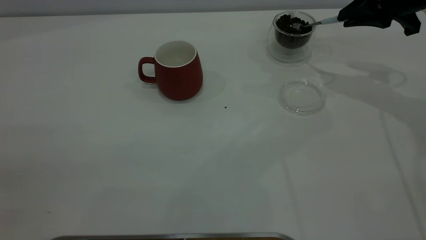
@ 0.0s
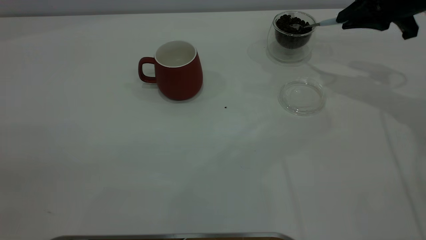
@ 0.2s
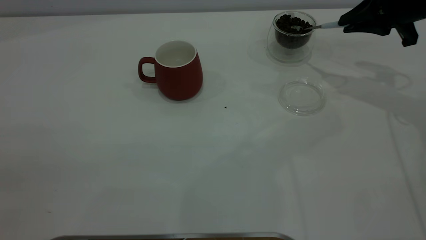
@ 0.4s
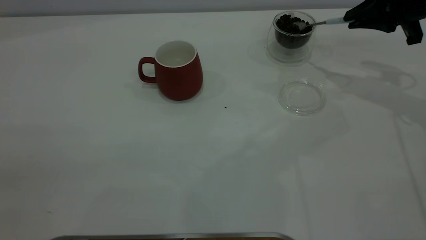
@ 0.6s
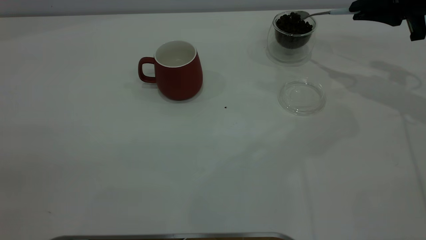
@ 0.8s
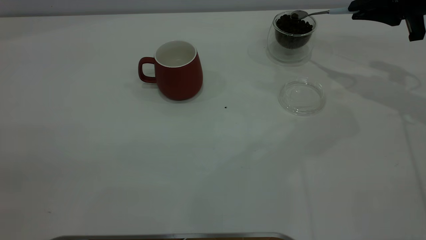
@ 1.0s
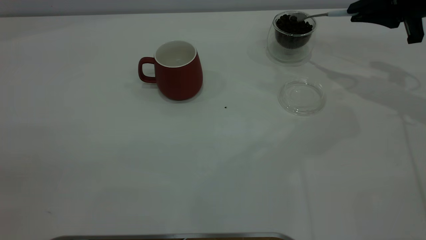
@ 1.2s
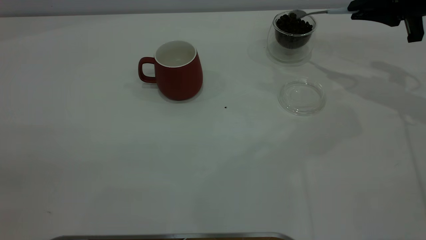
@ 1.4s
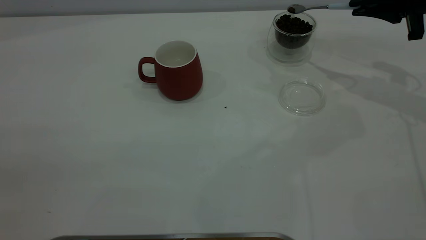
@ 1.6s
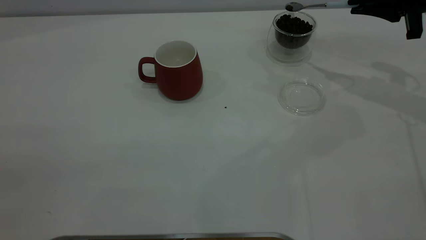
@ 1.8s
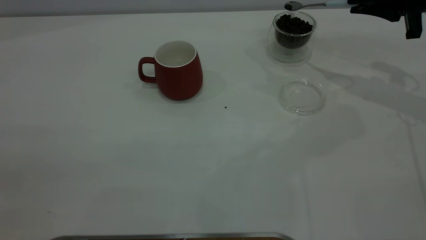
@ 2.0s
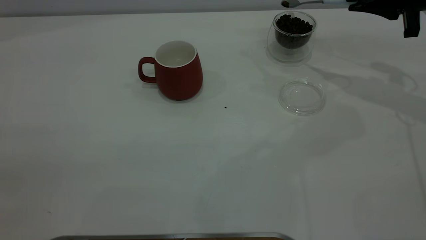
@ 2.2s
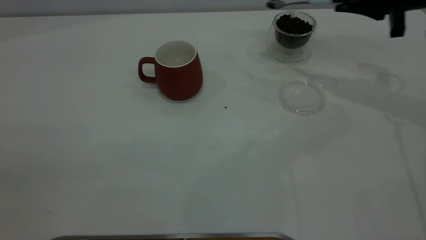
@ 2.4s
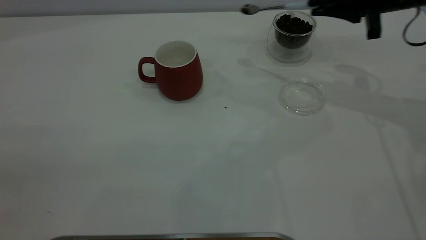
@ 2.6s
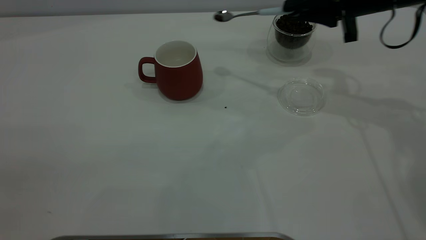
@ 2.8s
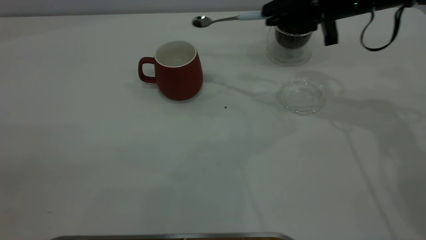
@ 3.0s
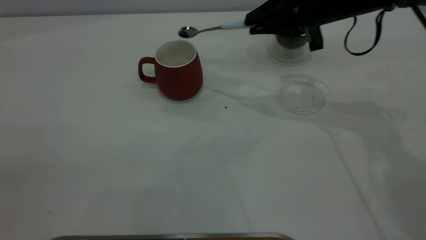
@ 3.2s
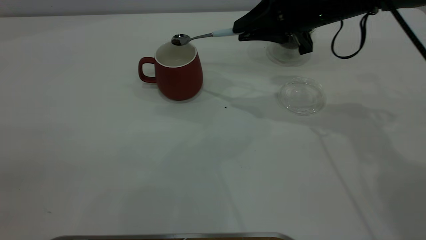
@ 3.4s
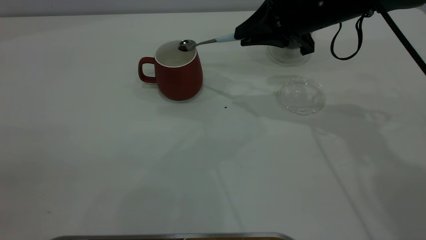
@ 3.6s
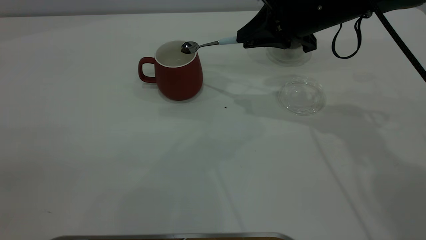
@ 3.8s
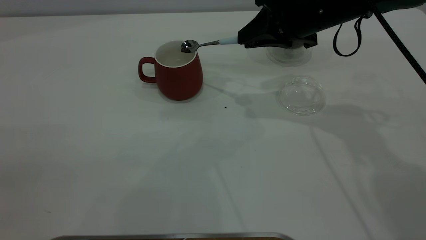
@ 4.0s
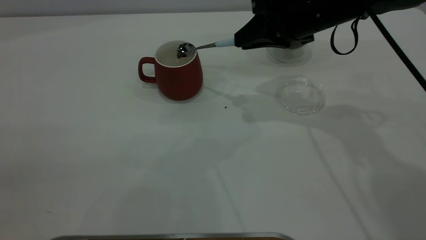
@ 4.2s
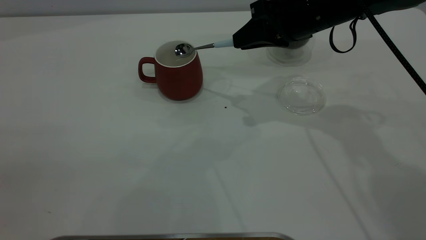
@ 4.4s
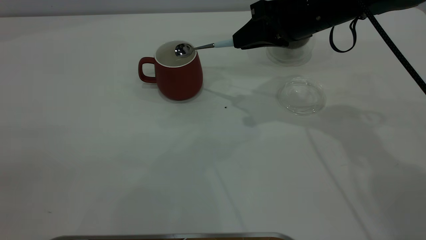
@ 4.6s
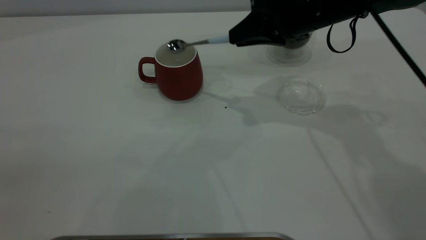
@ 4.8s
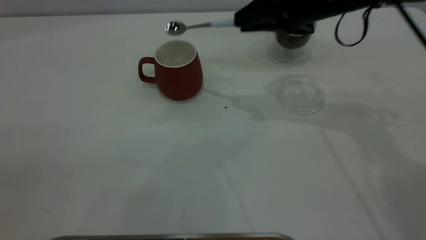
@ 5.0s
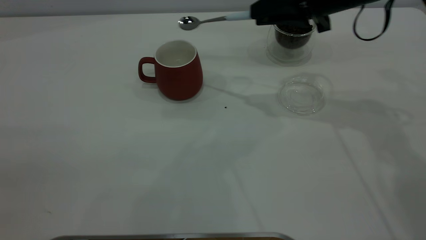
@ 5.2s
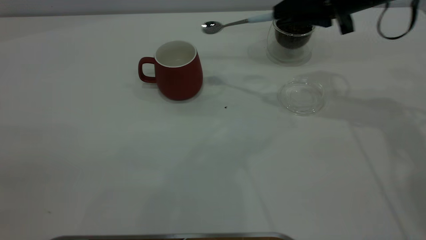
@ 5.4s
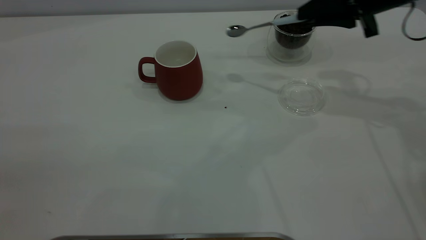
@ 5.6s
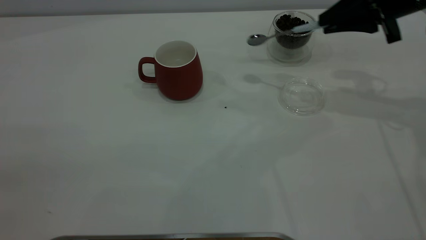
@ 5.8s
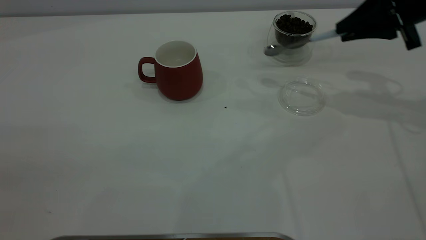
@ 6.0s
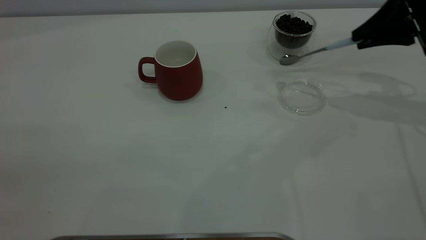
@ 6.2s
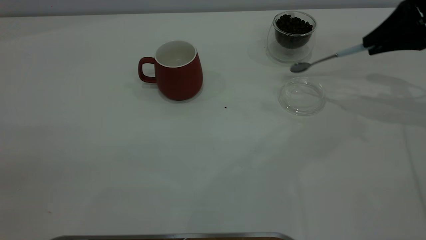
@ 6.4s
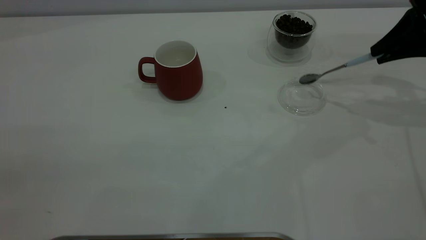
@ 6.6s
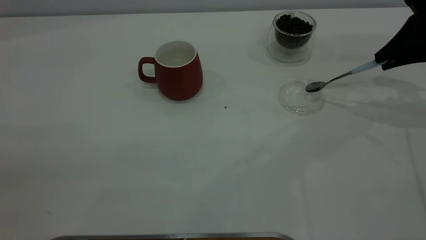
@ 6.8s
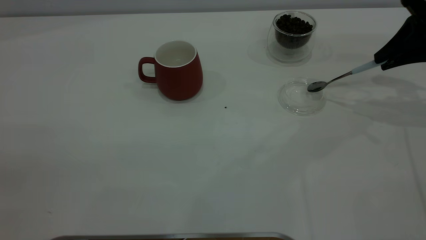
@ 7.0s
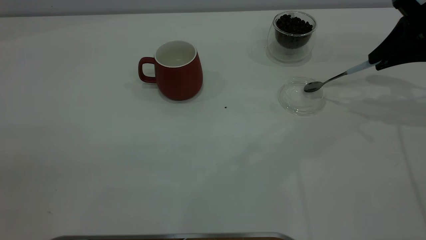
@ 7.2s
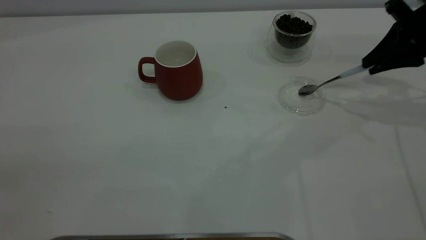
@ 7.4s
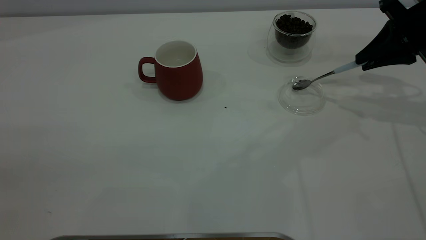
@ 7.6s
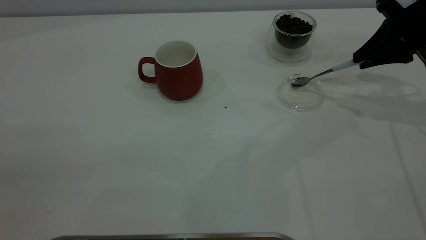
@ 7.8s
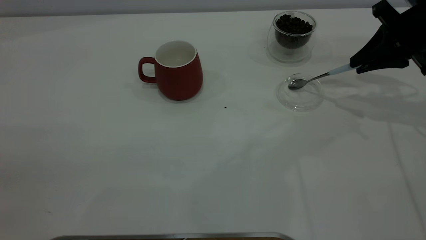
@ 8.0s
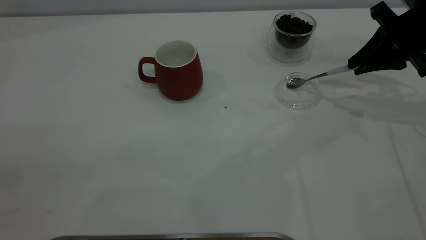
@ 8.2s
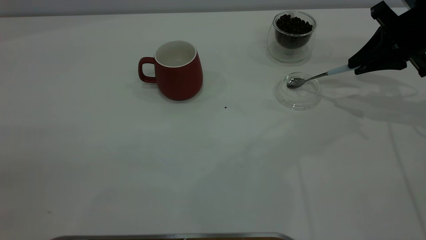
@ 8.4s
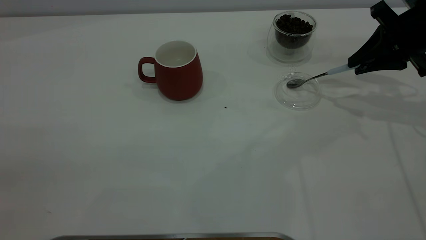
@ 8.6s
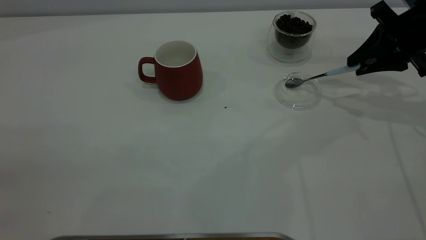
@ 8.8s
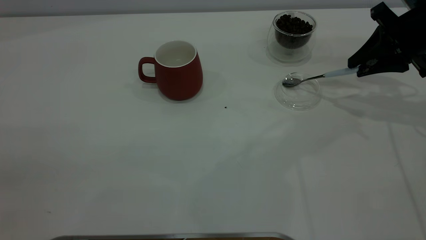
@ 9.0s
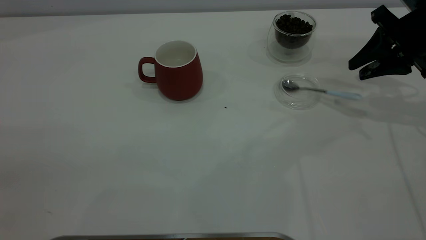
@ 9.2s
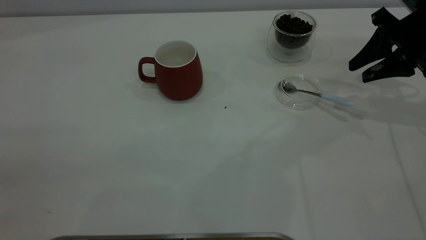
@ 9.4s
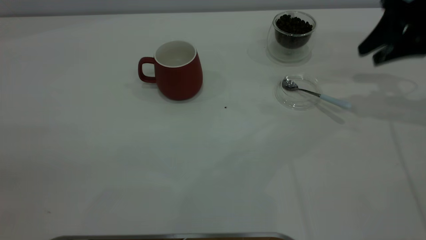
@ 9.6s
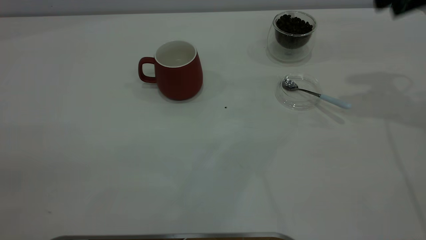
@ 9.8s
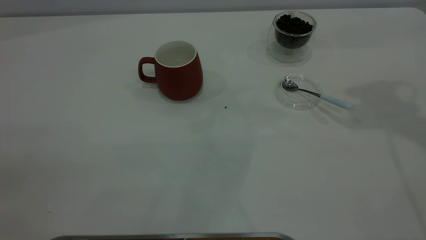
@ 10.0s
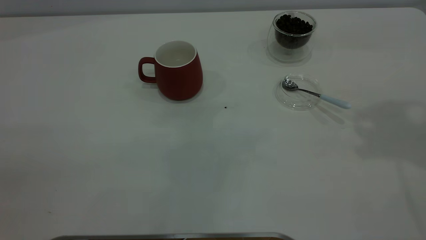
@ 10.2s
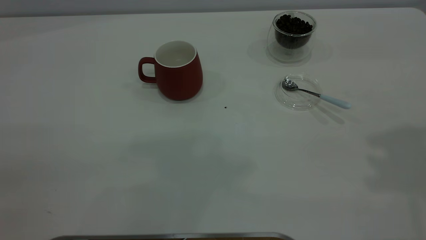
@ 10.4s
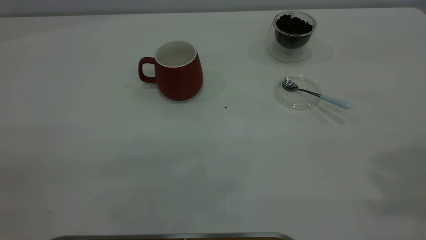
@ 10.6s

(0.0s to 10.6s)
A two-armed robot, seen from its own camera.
Task of the whole recording: the left gripper place the red cup in the center of the table, the right gripper take the blue spoon from the cup lid and scoop out the coffee beans from the coffee cup and put them into the red cup, the right gripper put the spoon back into the cup lid.
Step, 0.0s - 4.8s: Scoop a spoonful of beans into the cup.
Step, 5.0s - 9.4s: Place the spoon back in its original place.
0.0s - 1.6s: The grippers make only small movements.
1.6s - 3.0s: The right gripper moves to the left, some 15 cm.
3.0s - 4.6s: The right gripper changes place by some 5 cm.
4.6s - 6.0s: The right gripper is displaced to the right by about 15 cm.
6.0s - 9.0s: The grippers stay close to where they were, moving slightly.
9.0s - 10.6s: The right gripper shifts approximately 40 cm upward and backward.

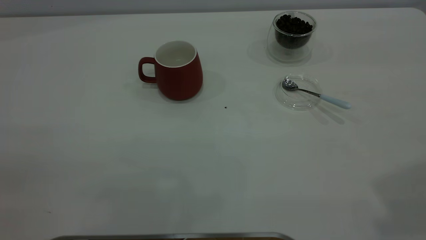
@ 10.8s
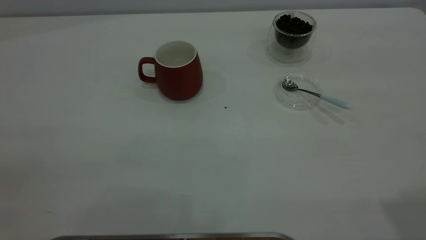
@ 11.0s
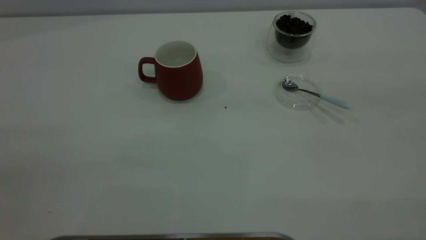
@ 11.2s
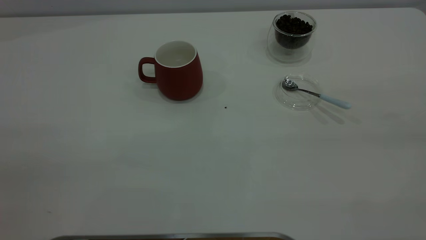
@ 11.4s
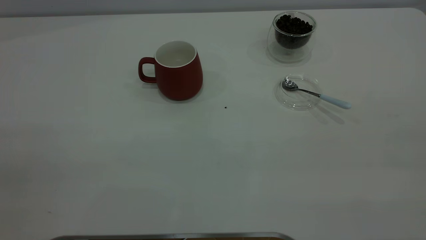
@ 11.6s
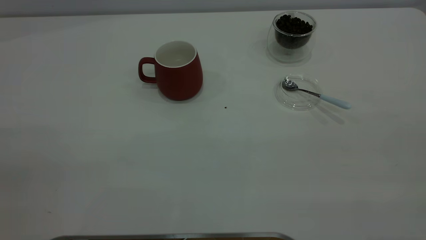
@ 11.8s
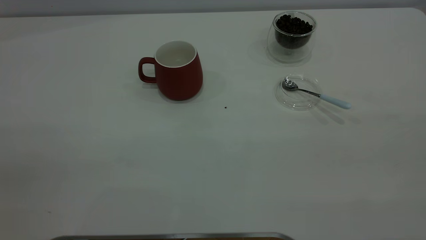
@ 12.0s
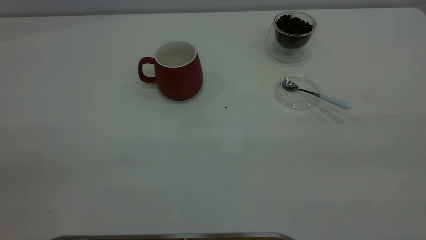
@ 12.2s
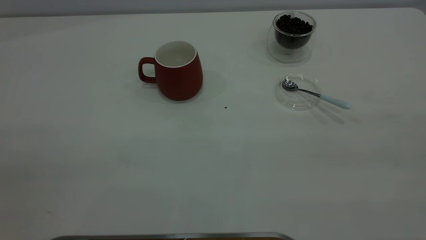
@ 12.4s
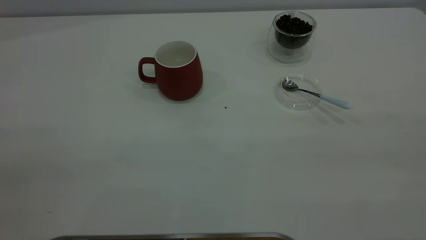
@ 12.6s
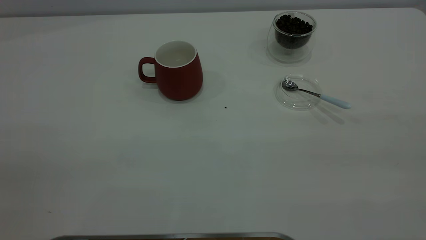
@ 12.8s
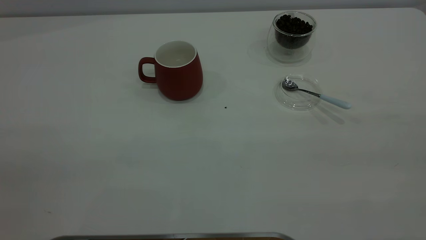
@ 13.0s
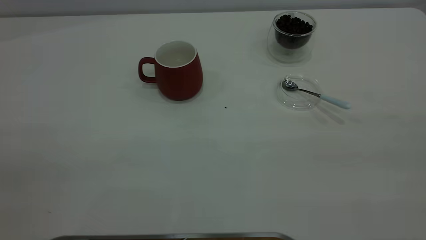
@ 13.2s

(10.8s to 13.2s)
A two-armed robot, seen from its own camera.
Task of the whole recording: the left gripper place the red cup in the center of the table, the right gripper take the blue spoon from the cup lid and scoop out the coffee beans from the coffee cup and put them into the red cup, the right gripper put the spoon back into the cup lid.
12.0s - 13.2s: Neither gripper changes place.

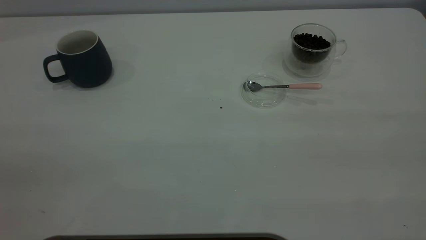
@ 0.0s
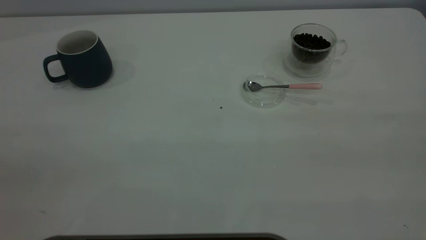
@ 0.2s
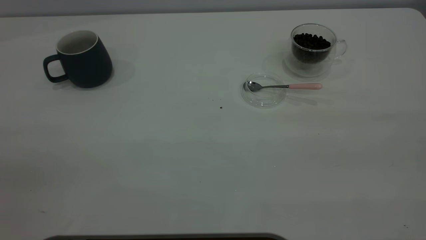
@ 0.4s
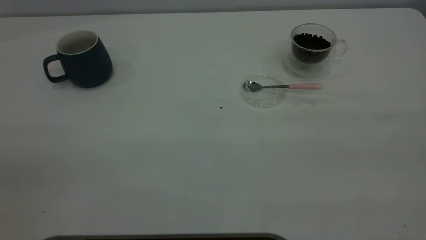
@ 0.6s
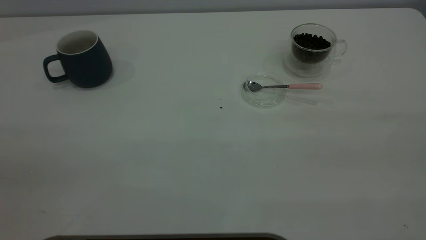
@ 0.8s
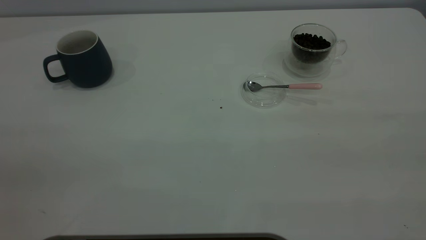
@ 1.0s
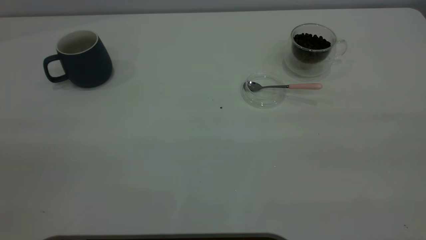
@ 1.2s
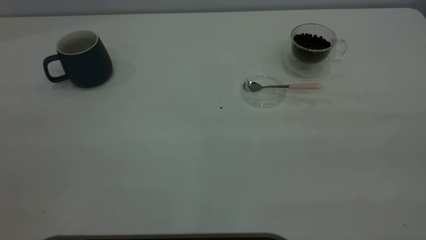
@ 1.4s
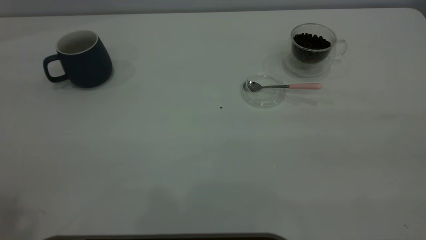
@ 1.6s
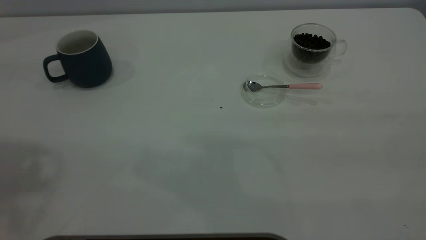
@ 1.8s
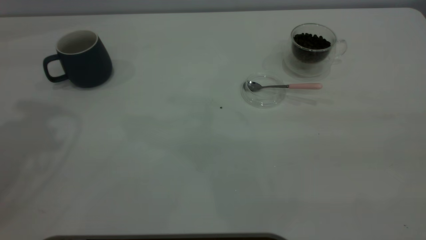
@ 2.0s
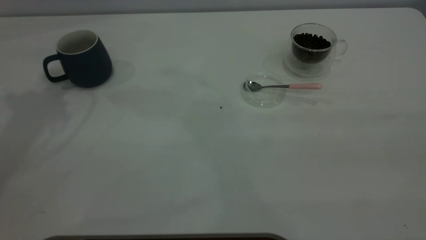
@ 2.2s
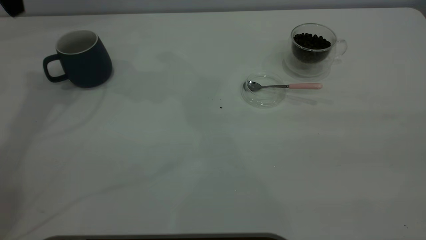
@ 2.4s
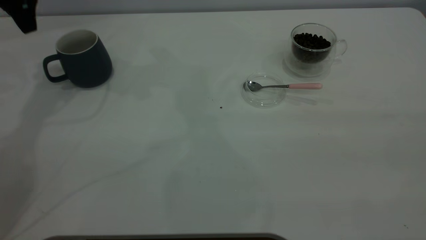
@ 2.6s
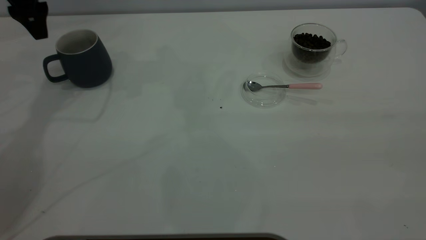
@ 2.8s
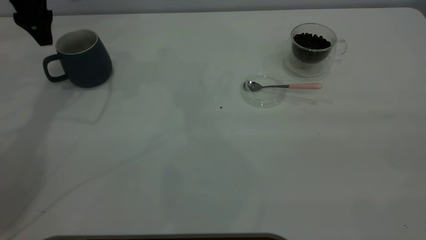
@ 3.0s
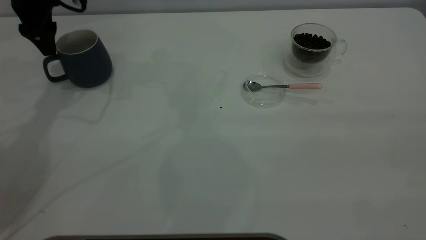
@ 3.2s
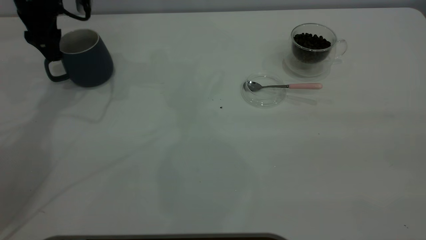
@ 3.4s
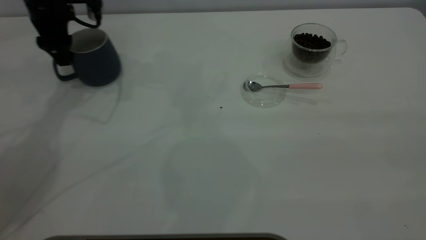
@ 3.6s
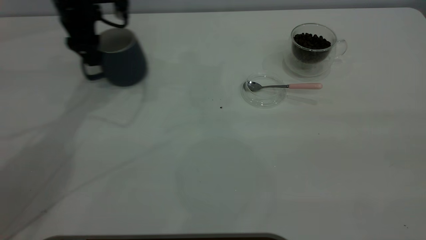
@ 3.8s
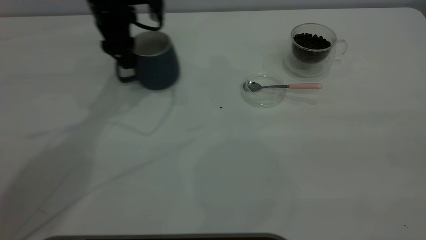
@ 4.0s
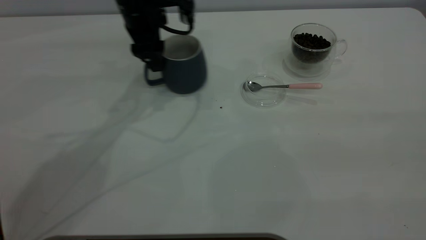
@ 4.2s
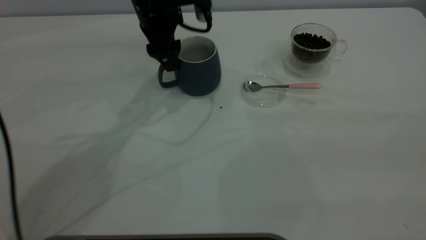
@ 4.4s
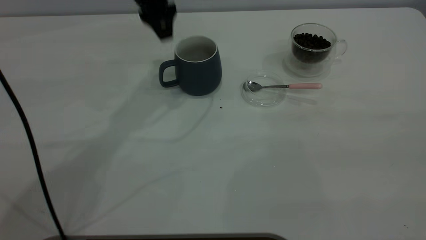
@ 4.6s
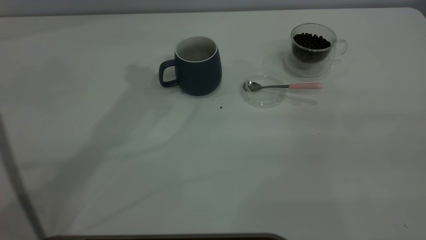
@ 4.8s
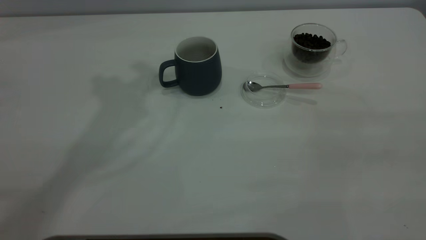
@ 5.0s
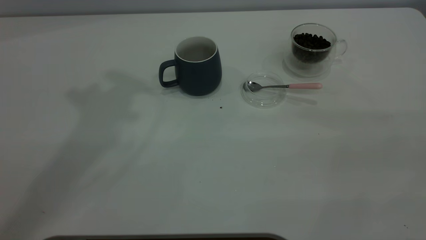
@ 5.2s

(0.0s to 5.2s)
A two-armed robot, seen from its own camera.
Task of the whole recording: the left gripper place the grey cup in the center of the table, the right gripper take the pink spoon from the cup lid and scoop out the coffee beans from the coffee cup and put them into the grey cup, the right gripper put the spoon back into the cup lid.
Step, 0.0s - 4.4s: Move the cup to the center of view.
1.8s - 3.4s: The left gripper is displaced forward and downward by approximately 35 cm.
3.4s - 5.2s: The left gripper moves upward and backward, roughly 35 cm.
